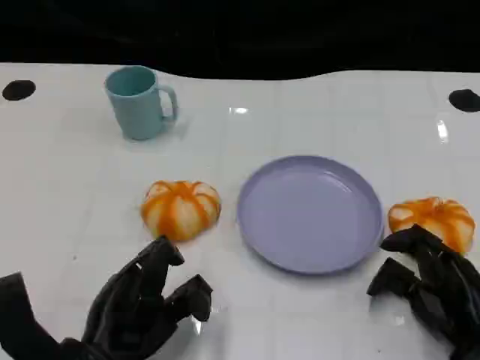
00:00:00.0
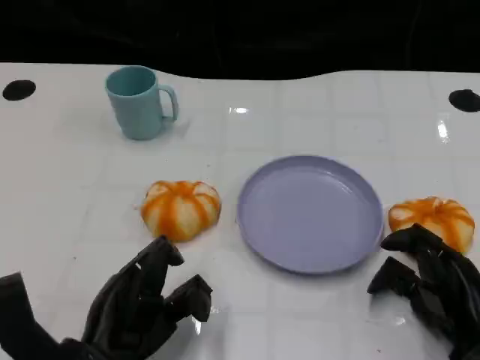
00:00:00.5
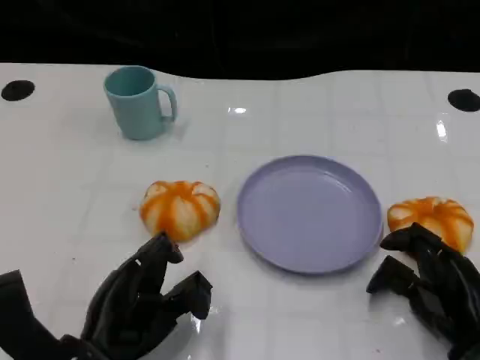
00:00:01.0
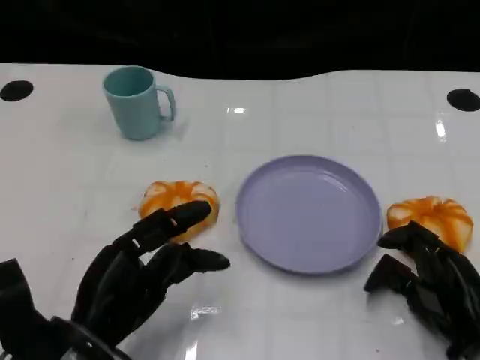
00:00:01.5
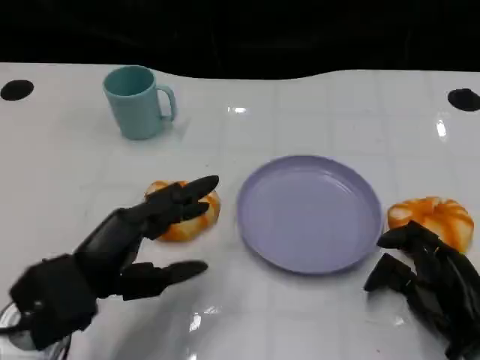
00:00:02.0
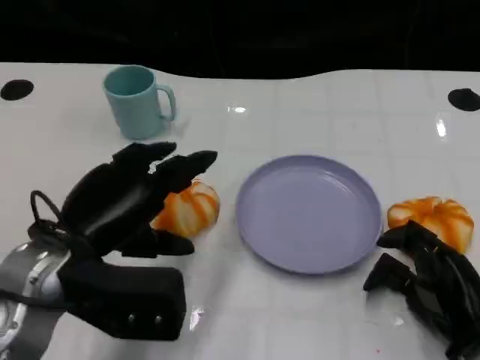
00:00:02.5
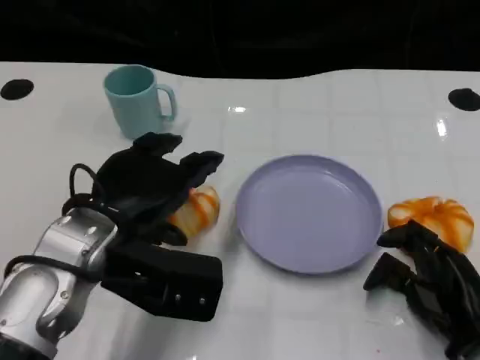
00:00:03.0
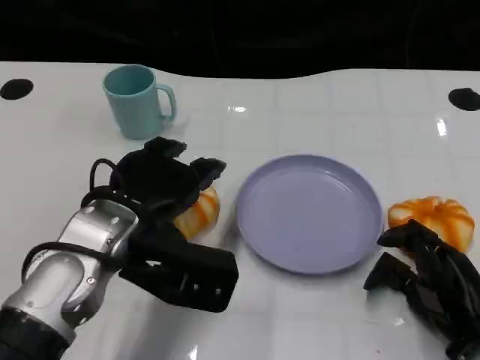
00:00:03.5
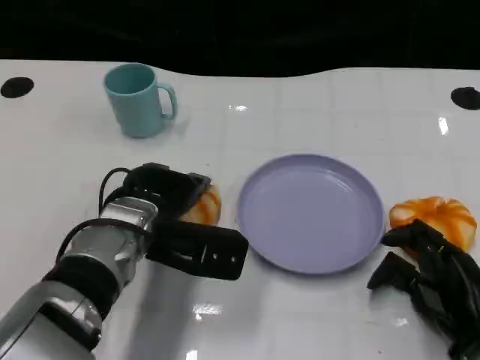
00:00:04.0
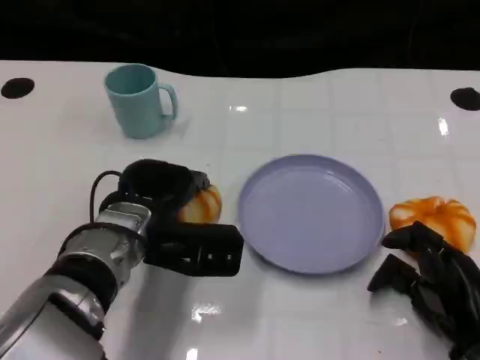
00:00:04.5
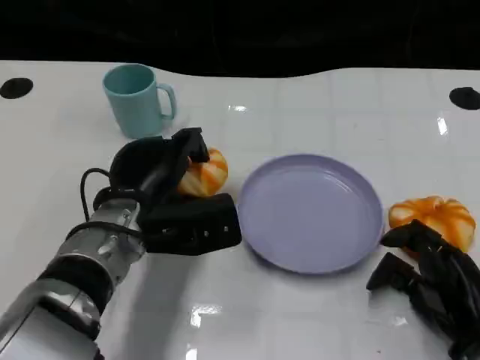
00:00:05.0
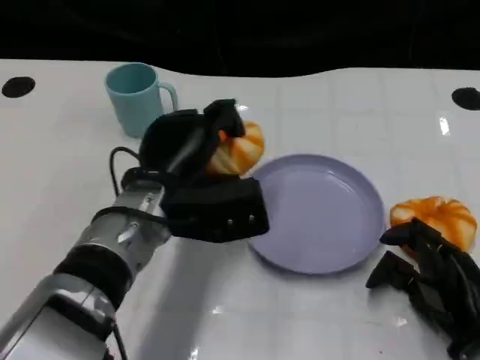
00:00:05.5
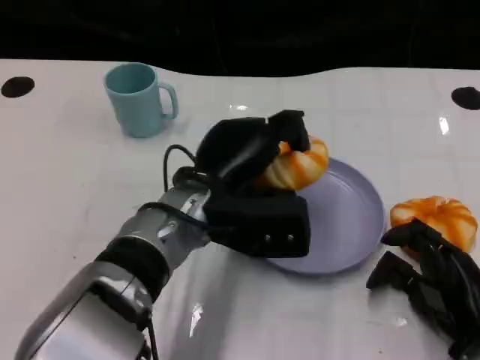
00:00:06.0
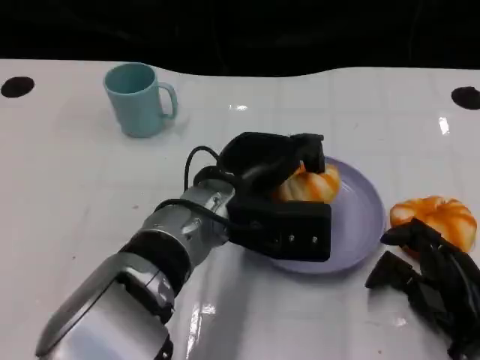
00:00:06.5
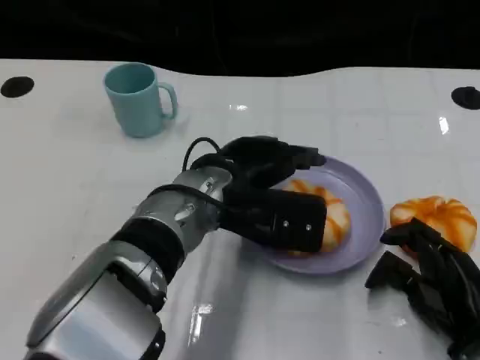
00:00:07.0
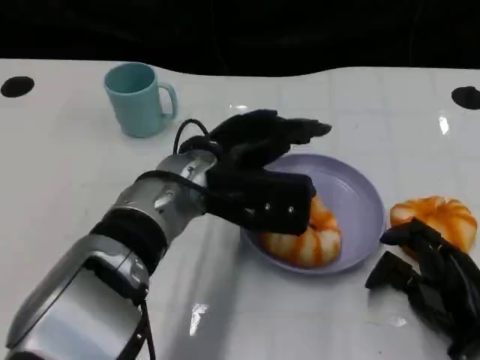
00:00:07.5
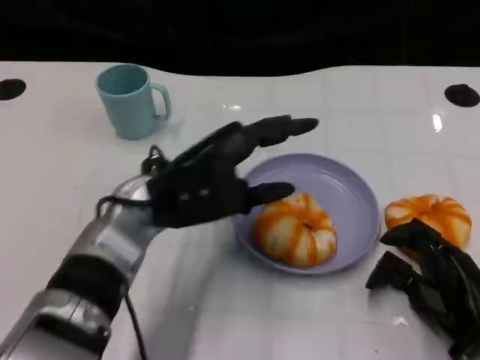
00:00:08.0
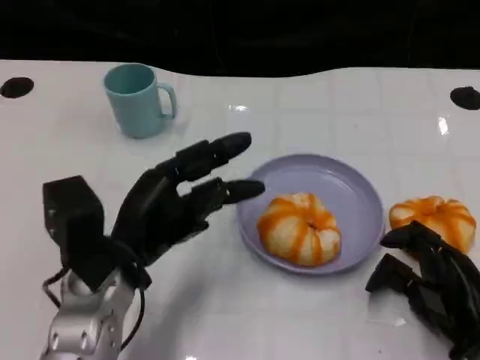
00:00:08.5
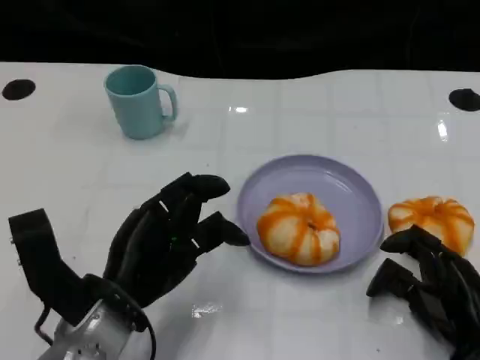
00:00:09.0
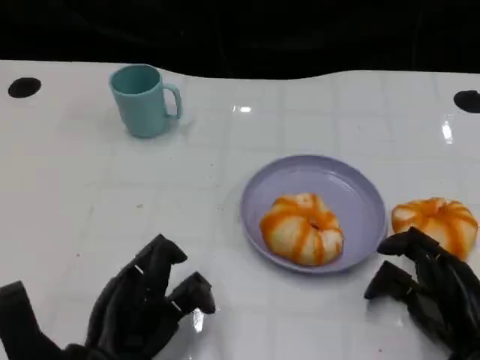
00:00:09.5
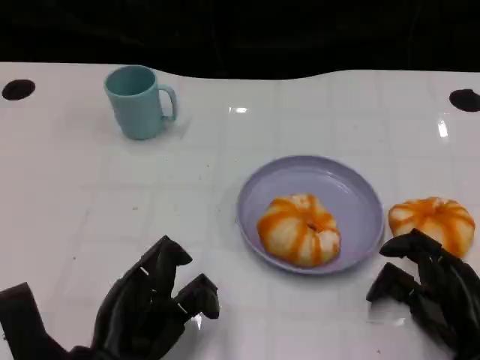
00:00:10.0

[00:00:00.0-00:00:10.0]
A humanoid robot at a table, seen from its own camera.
Task of the whole recording: Grasp the bread from the table and place it into the plate.
00:00:00.0 to 00:00:02.0: The left hand travels upward by roughly 5 cm.
00:00:02.0 to 00:00:04.0: The left hand moves forward and to the right, about 10 cm.
00:00:04.0 to 00:00:06.0: The left hand is displaced to the right by about 5 cm.
00:00:06.0 to 00:00:08.0: The left hand heads to the left, covering roughly 5 cm.
00:00:08.0 to 00:00:10.0: The left hand heads backward, downward and to the left, covering some 15 cm.

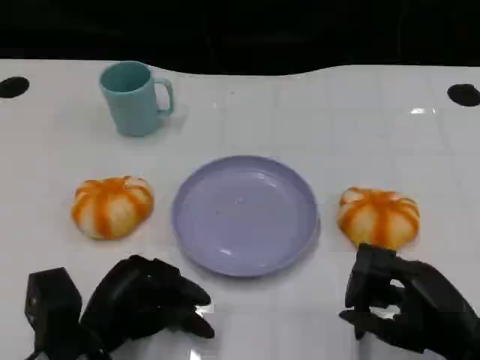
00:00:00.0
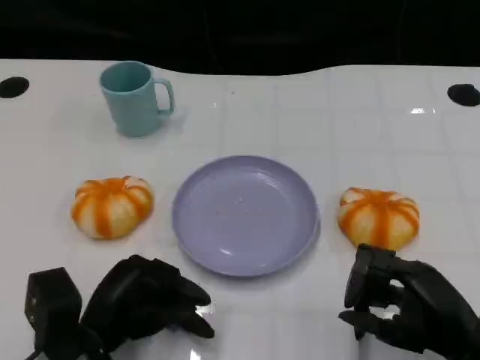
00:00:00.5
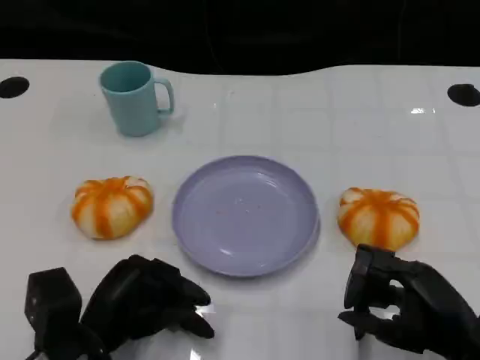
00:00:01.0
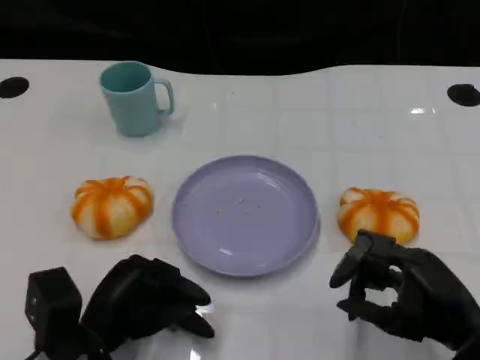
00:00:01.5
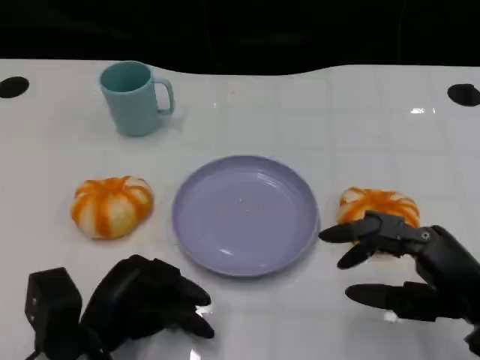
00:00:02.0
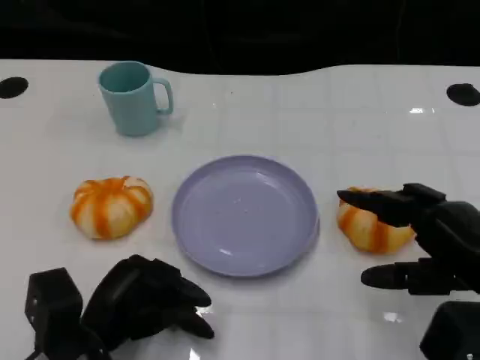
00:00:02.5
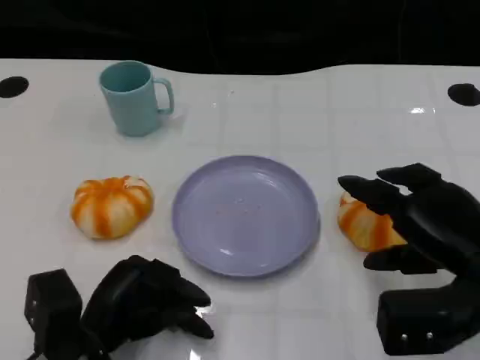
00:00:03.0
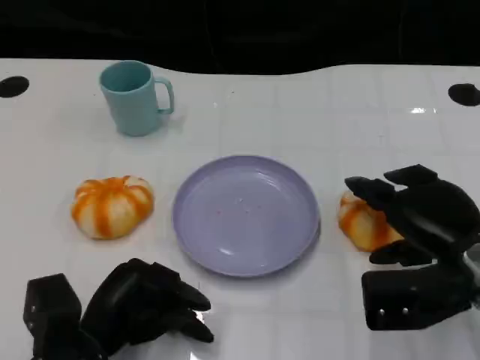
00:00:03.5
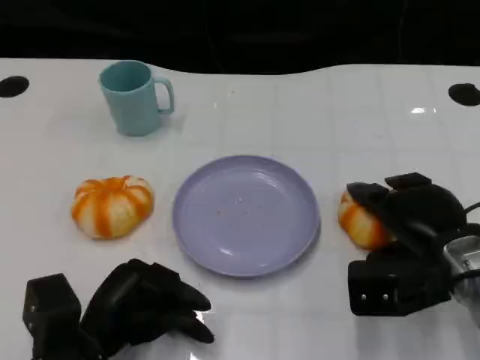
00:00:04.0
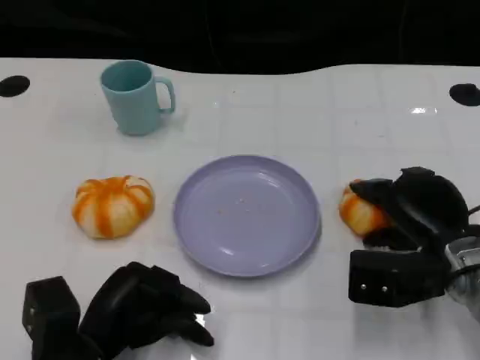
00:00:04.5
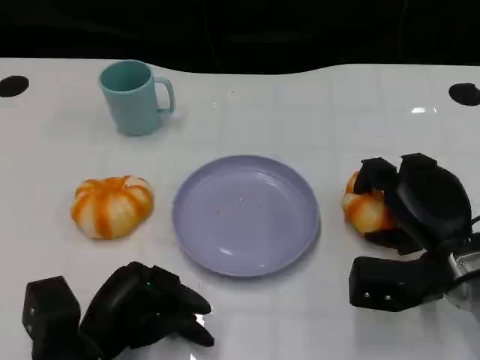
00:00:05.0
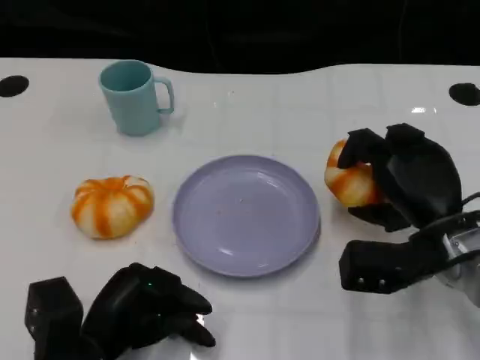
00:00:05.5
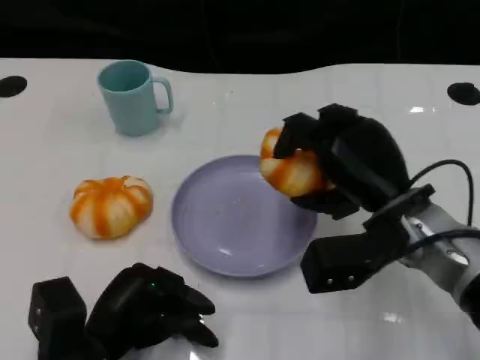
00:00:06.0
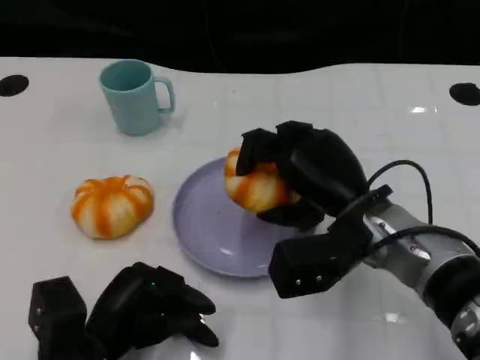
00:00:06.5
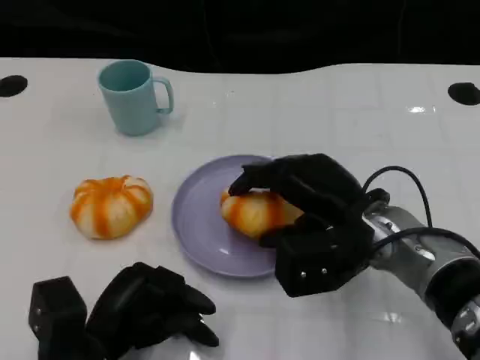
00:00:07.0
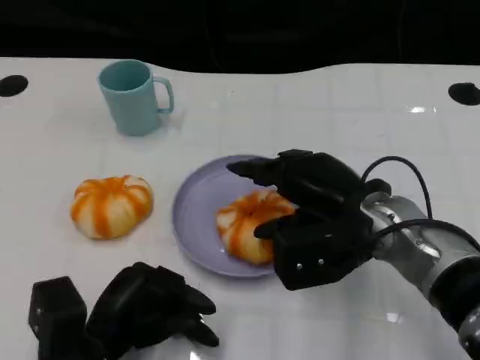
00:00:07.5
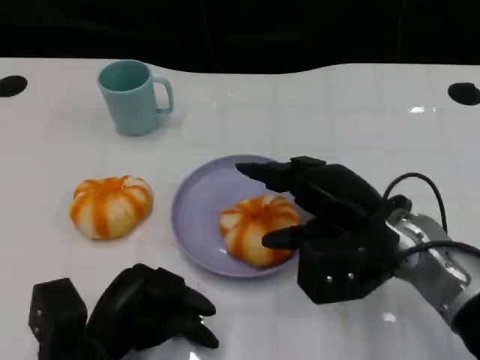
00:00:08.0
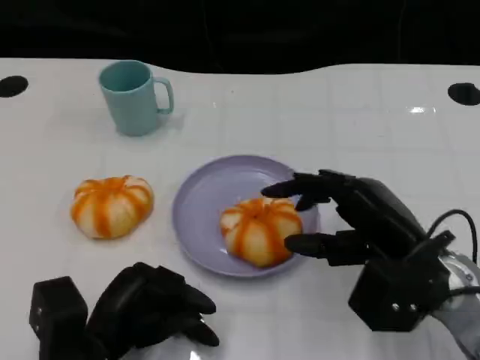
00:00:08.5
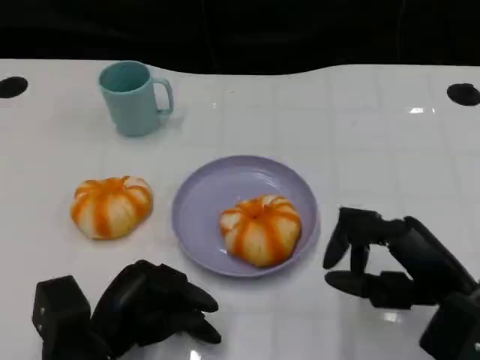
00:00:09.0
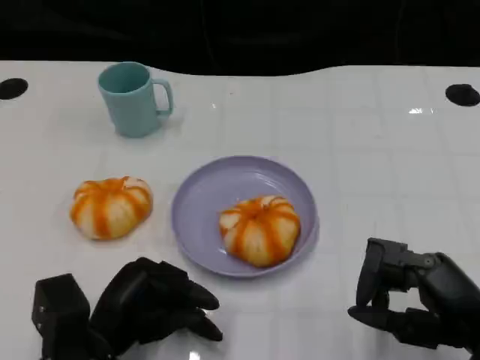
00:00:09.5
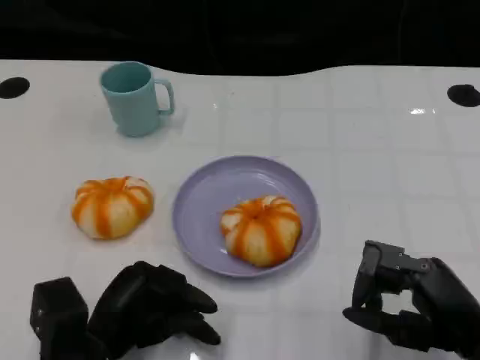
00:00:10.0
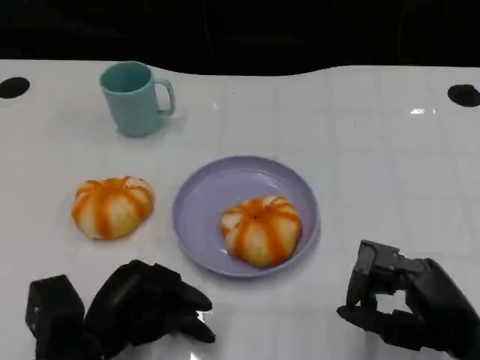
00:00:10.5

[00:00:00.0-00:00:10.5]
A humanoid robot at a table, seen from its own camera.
Task of the whole recording: Grasp the bread from the table and place it into the plate.
00:00:02.0 to 00:00:04.0: The right hand heads forward, covering approximately 10 cm.
00:00:04.0 to 00:00:06.5: The right hand moves to the left, approximately 10 cm.
00:00:06.5 to 00:00:08.5: The right hand goes about 5 cm to the right.
00:00:08.5 to 00:00:10.5: The right hand is displaced backward by about 5 cm.

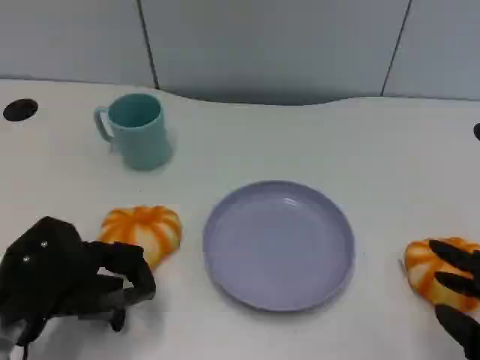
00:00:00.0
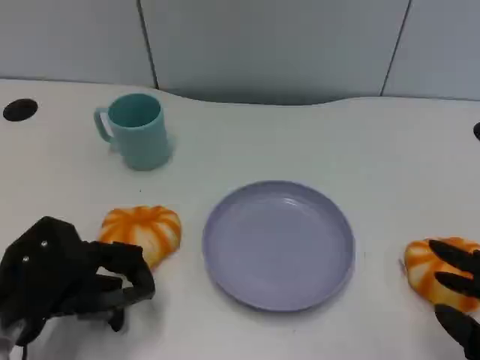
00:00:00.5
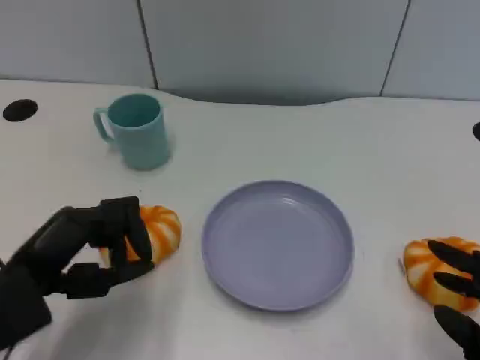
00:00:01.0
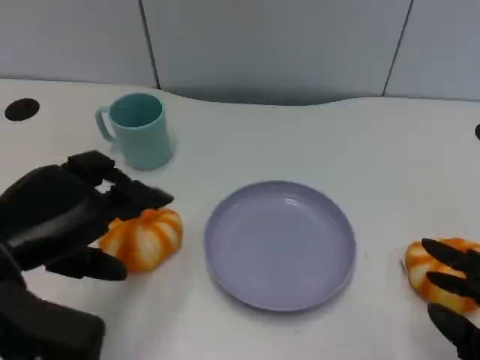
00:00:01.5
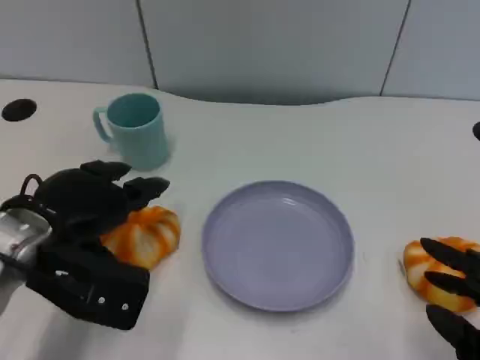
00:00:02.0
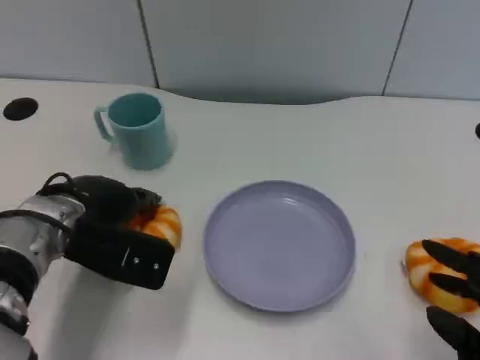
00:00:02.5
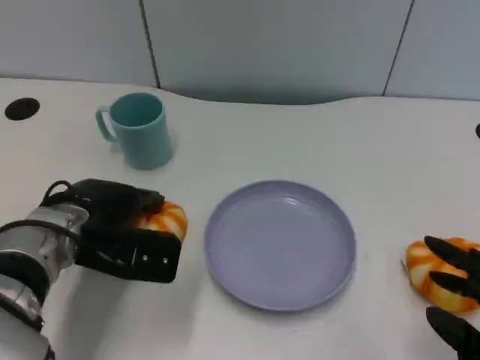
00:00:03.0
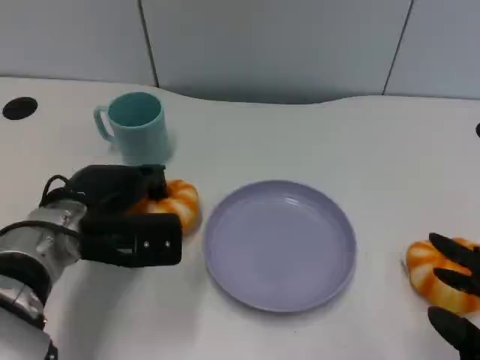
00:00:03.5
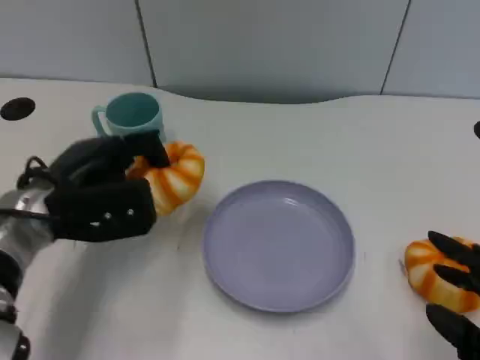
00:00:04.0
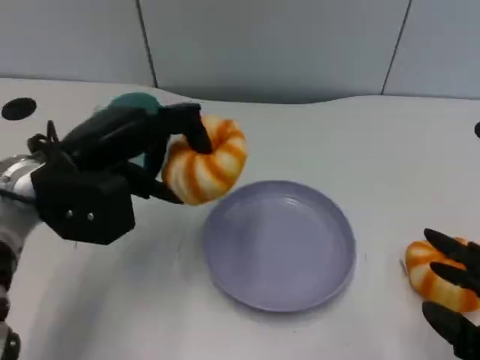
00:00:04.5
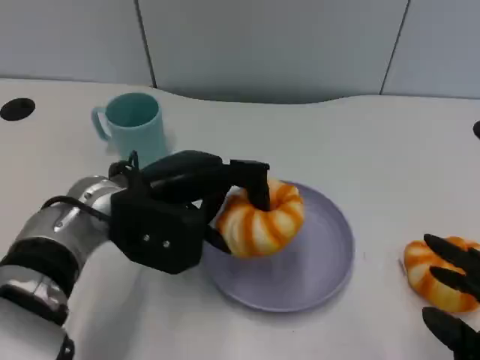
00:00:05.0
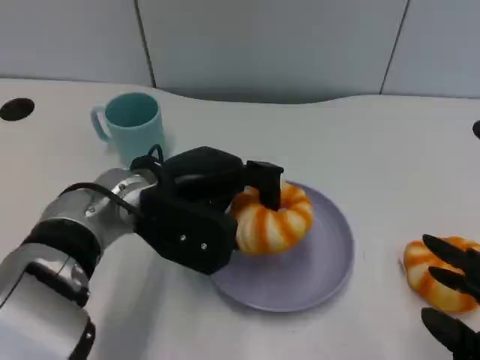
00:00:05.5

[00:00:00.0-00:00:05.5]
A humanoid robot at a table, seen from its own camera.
Task of the whole recording: Grasp the bread from the table and place it into the plate.
00:00:00.0 to 00:00:02.0: The left hand goes roughly 5 cm upward.
00:00:02.0 to 00:00:03.5: The left hand changes place by approximately 5 cm.
00:00:03.5 to 00:00:05.5: The left hand shifts roughly 5 cm to the right.
